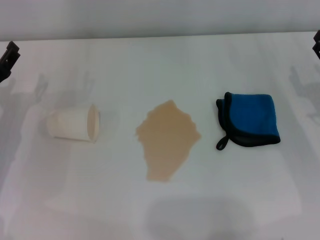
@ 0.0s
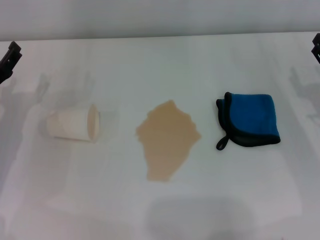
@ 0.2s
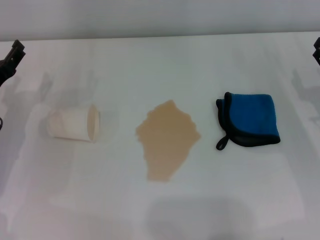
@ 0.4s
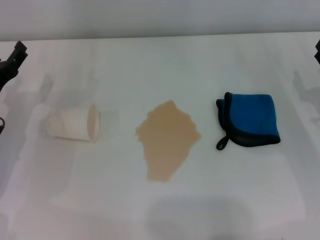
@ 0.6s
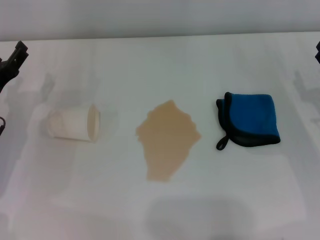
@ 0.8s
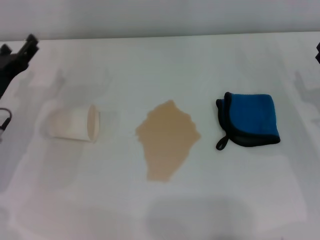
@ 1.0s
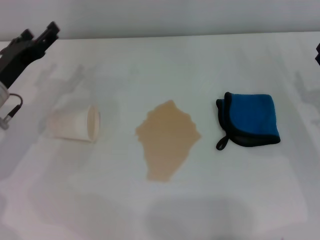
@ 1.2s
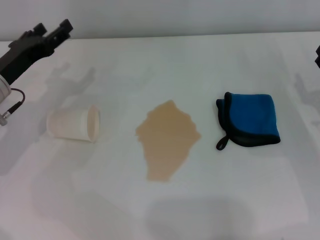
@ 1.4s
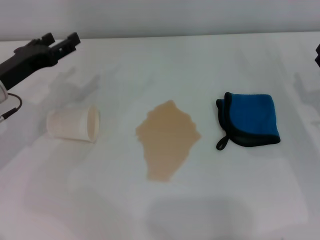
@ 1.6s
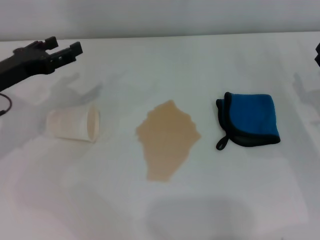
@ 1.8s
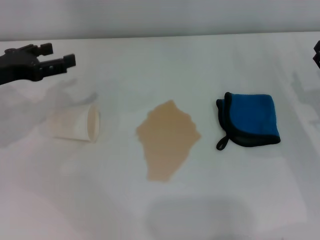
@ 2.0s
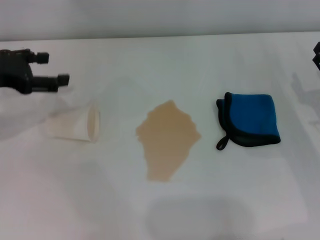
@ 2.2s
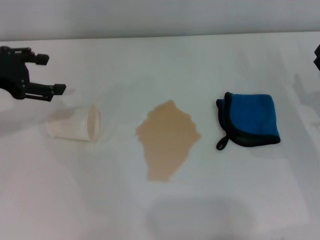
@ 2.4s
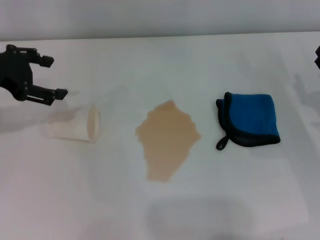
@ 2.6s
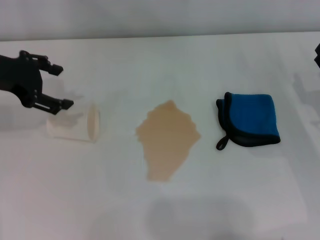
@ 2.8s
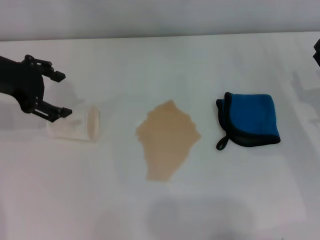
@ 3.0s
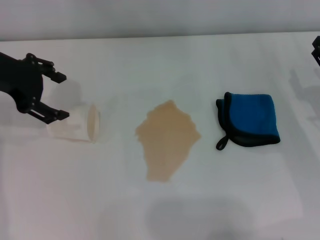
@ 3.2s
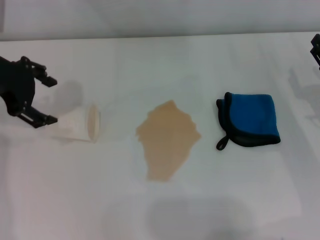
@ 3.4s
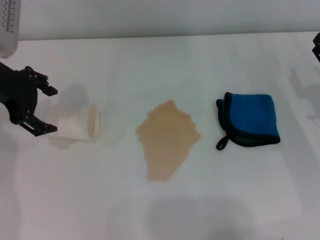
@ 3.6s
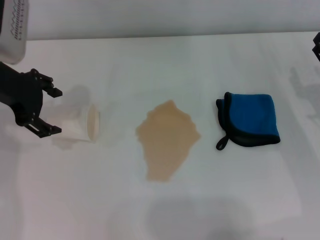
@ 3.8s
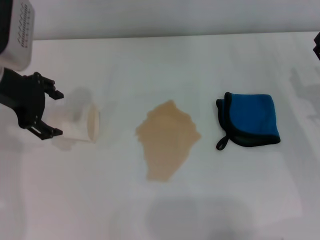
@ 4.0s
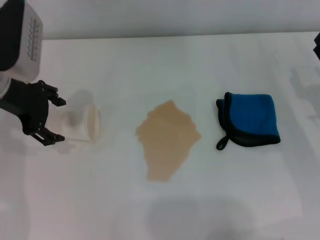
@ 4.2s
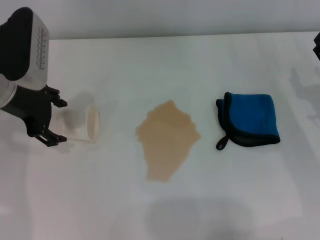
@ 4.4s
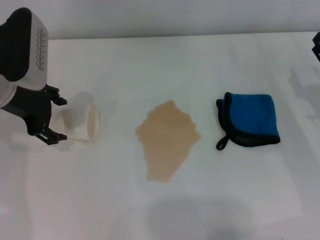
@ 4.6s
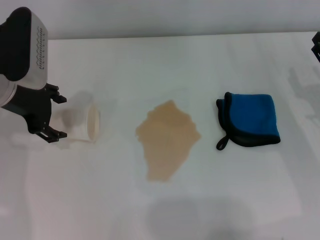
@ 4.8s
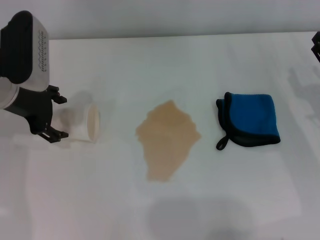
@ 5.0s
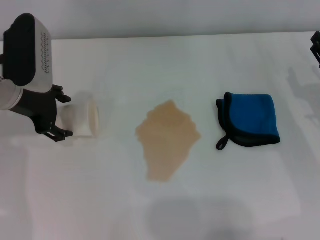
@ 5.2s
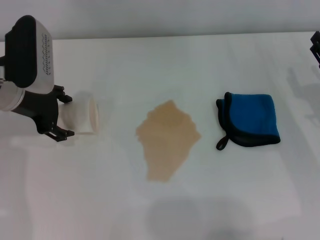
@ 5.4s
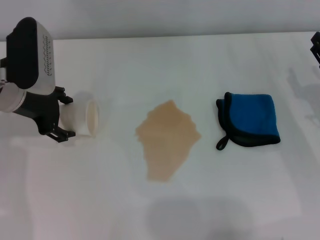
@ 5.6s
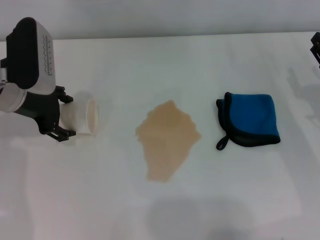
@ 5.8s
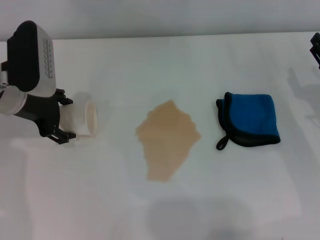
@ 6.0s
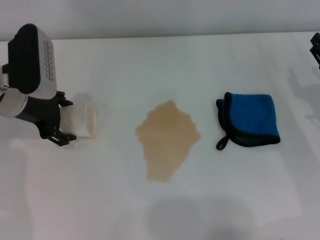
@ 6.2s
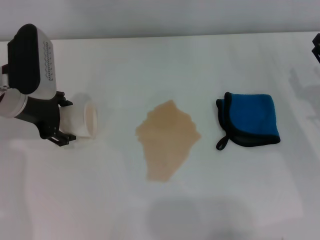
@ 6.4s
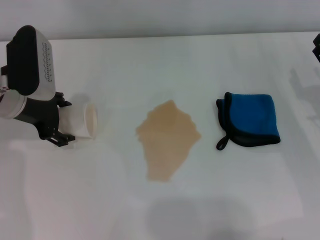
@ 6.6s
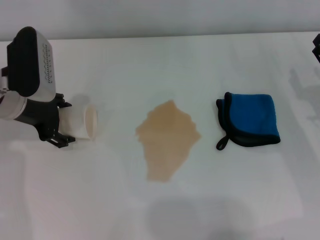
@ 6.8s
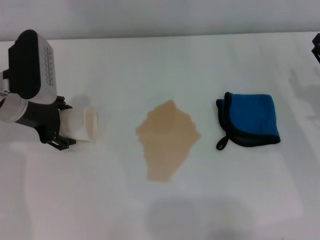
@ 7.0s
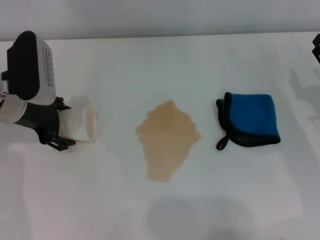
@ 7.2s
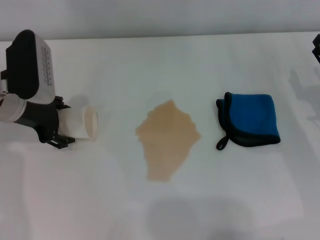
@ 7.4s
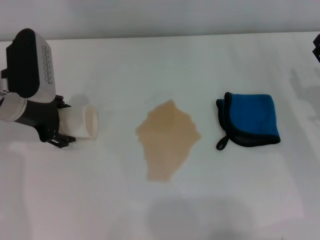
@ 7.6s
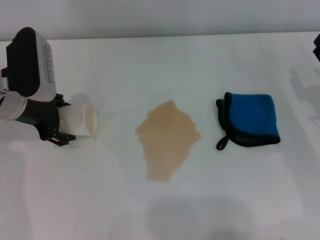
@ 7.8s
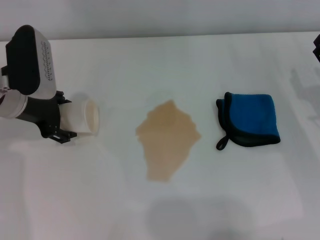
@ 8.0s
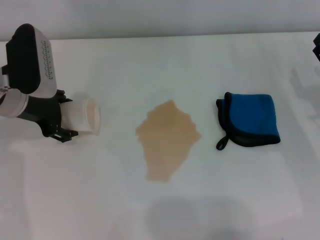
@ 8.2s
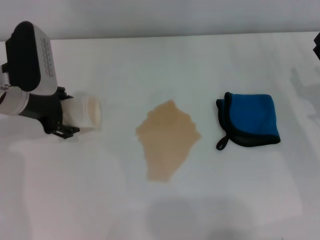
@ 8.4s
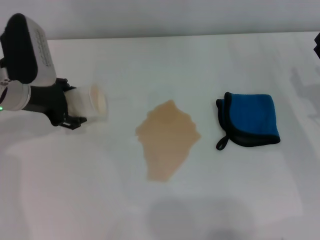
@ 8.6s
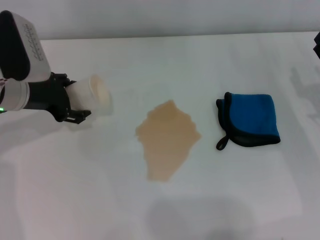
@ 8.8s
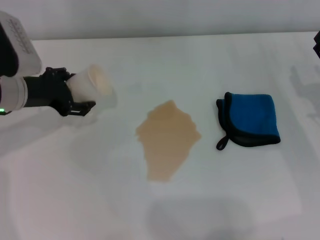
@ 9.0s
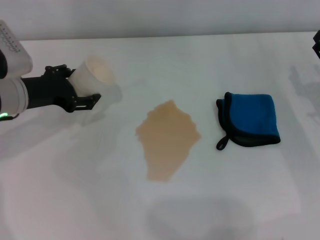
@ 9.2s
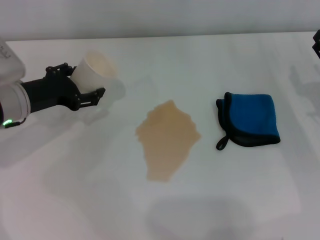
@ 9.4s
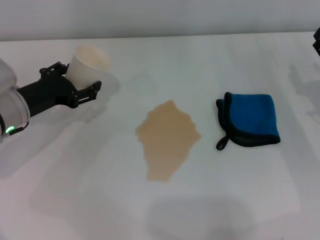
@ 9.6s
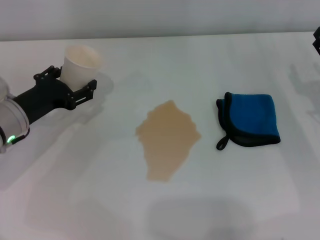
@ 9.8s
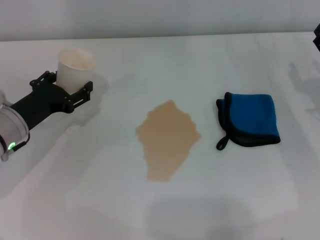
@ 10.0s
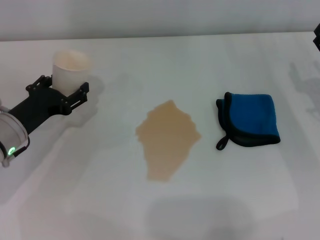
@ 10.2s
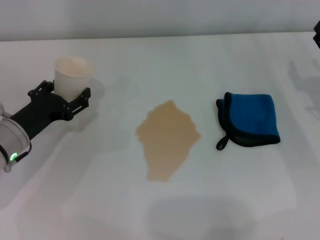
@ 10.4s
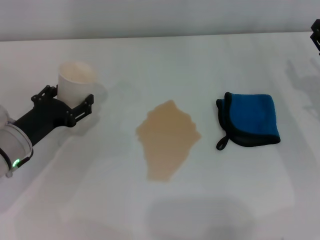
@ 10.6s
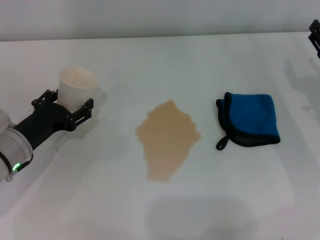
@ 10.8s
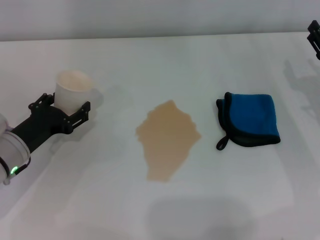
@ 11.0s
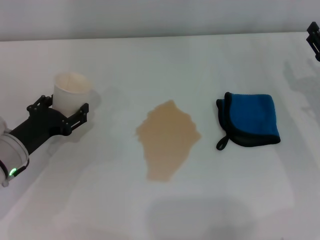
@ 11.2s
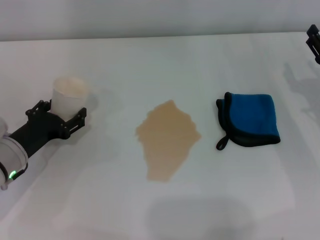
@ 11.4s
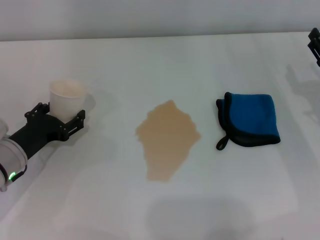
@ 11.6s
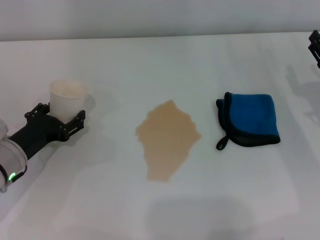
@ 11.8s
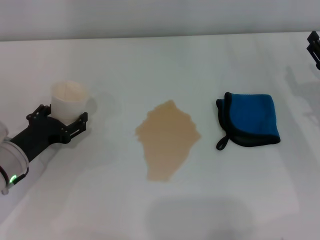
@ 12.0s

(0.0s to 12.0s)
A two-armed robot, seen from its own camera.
Step, 0.0s - 7.6s: Grasp the paper cup with the left gripper.
0.0s - 1.6s: The left gripper changes place by some 5 cm.
1.6s - 3.0s: The left gripper travels upward by some 10 cm.
3.0s - 4.4s: The grippers move only a little.
4.4s - 6.0s: There are only small adjustments of the grippers.
6.0s - 7.6s: Both grippers stay put.
9.0s - 10.4s: The left gripper travels downward and backward by roughly 10 cm.
10.4s - 12.0s: There are only small adjustments of the grippers.

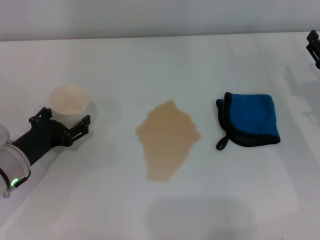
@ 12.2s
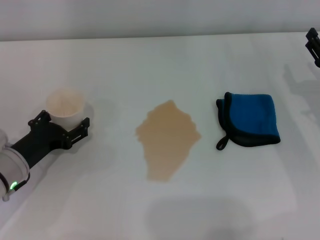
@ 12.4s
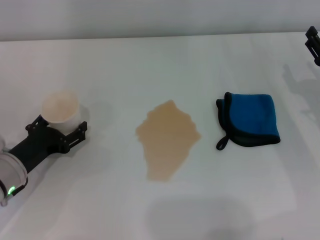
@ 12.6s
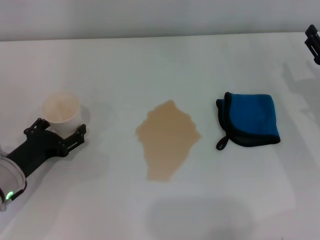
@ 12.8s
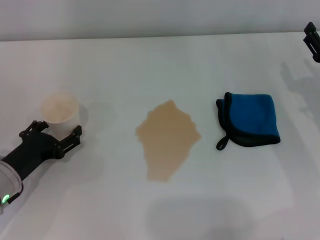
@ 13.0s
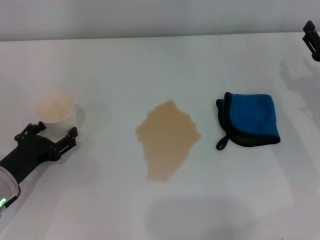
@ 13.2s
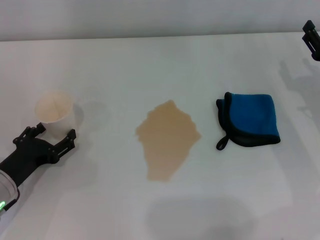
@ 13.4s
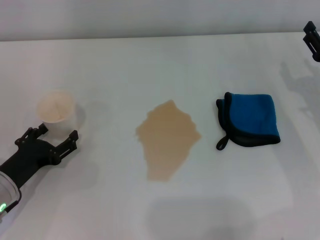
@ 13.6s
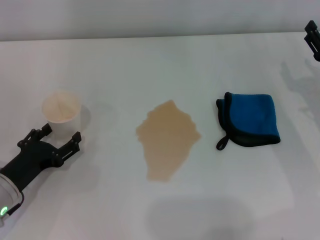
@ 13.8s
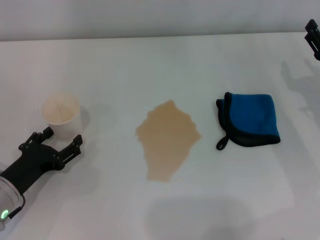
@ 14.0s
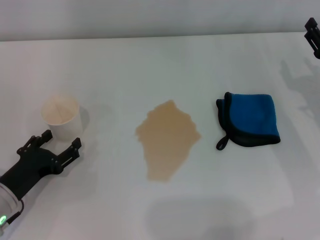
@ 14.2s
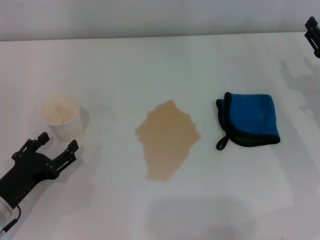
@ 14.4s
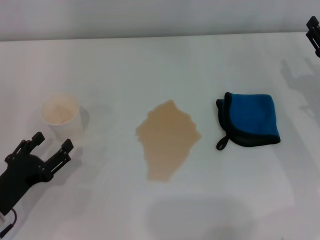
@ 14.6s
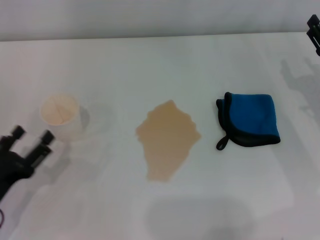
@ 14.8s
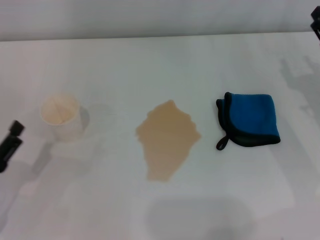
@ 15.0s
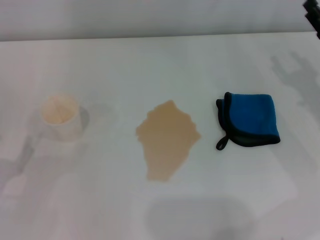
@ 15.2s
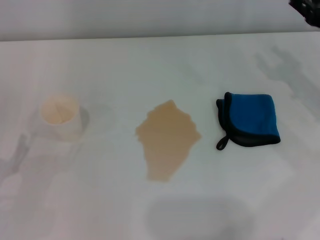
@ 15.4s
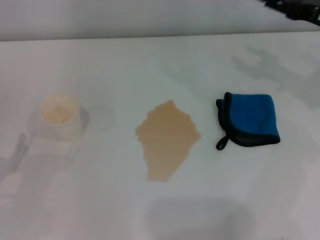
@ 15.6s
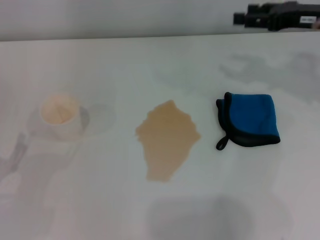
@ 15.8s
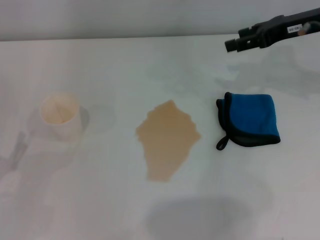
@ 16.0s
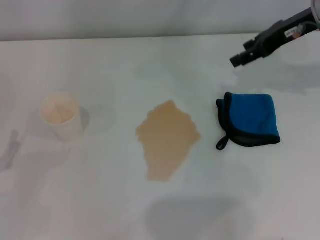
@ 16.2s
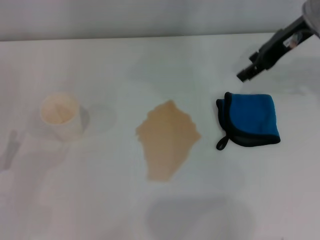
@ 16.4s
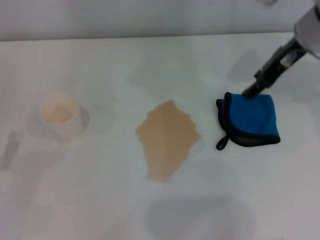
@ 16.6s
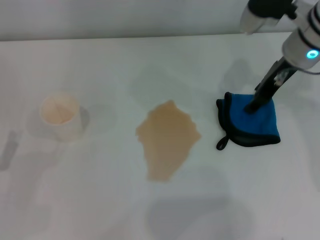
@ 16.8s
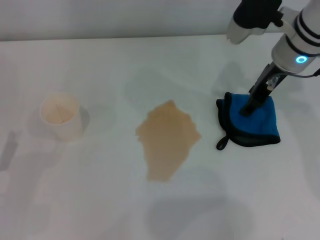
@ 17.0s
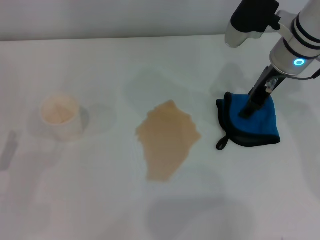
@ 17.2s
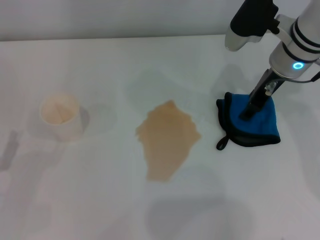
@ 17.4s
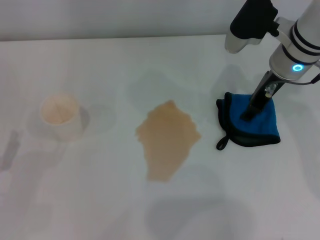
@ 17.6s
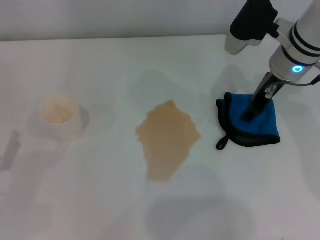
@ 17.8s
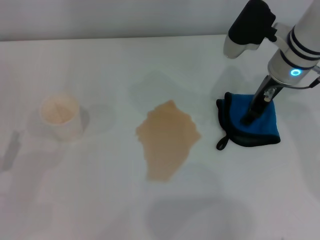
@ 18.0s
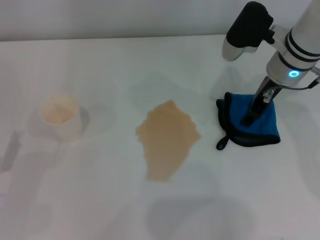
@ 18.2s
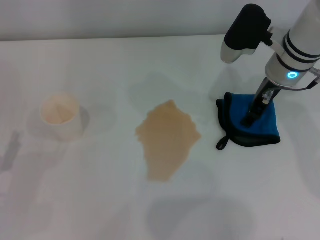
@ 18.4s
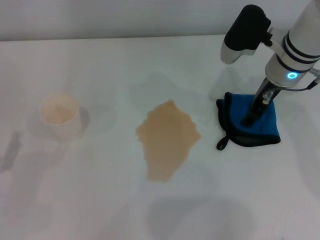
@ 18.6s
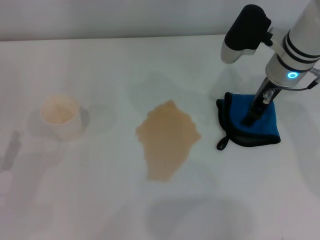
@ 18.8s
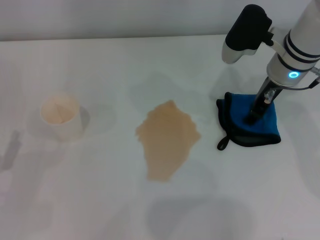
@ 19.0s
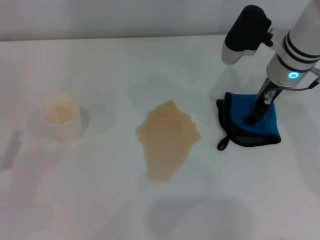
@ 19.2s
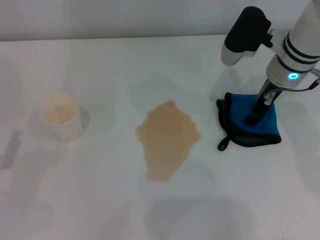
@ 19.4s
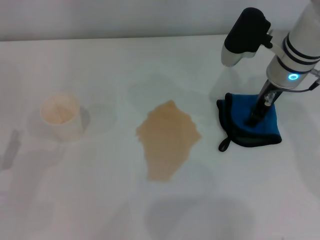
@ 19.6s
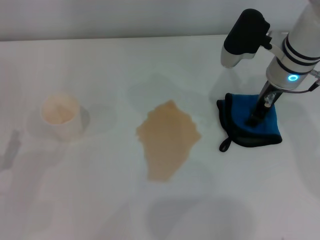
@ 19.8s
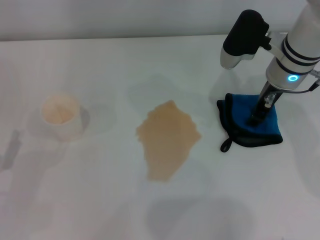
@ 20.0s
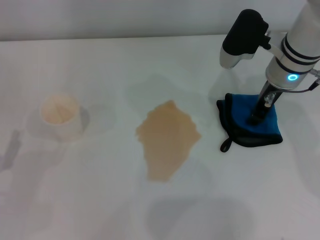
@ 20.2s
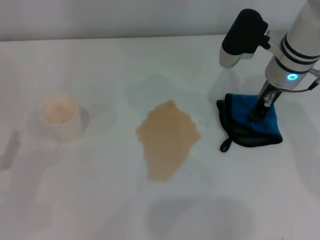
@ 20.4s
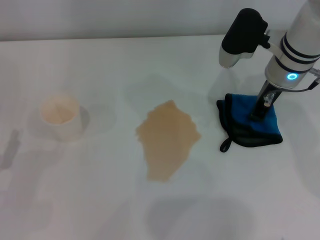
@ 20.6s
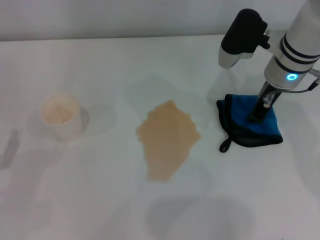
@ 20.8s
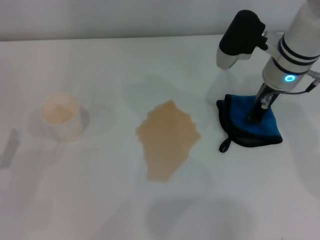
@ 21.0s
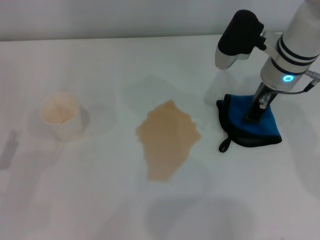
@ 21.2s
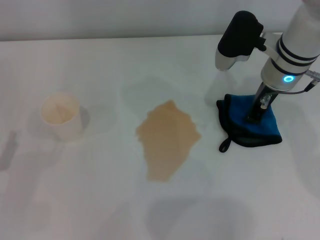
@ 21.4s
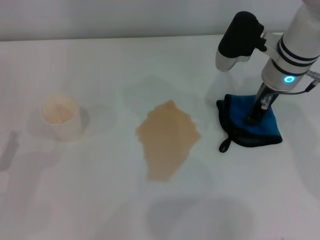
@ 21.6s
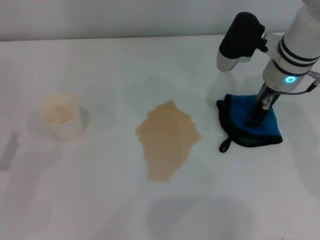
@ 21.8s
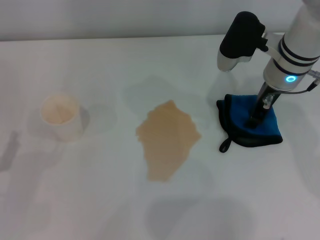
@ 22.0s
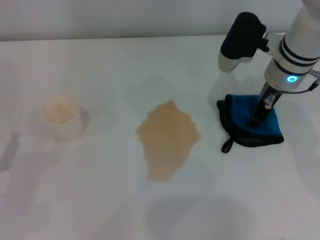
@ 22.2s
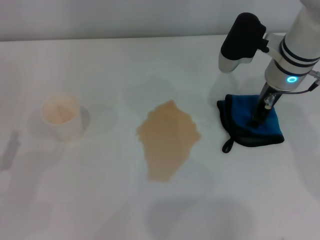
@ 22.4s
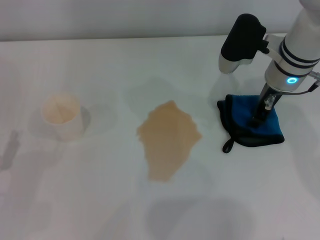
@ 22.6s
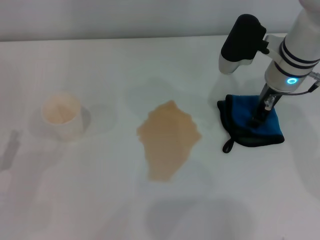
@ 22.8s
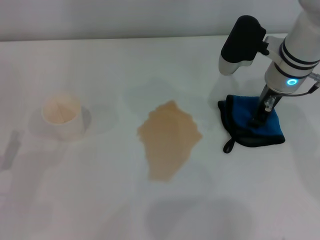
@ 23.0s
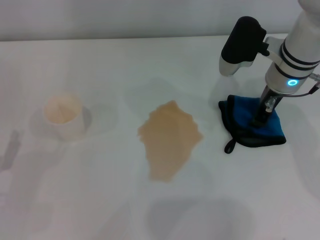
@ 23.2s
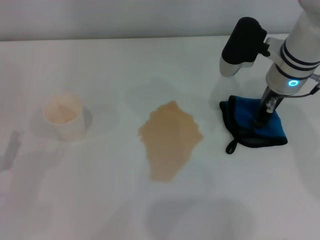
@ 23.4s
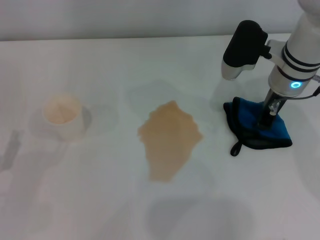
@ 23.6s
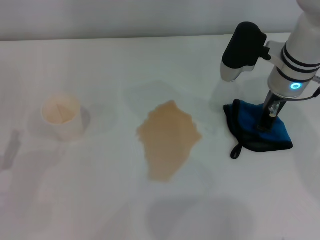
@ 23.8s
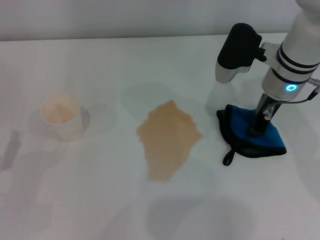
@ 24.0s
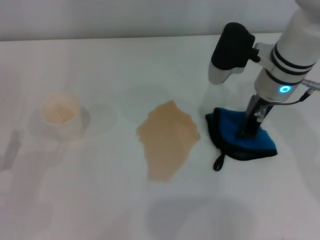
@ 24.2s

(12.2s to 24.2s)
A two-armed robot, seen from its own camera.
Step, 14.2s - 23.2s: Grasp the rag with the right gripper.
12.2s - 13.8s: There are only small adjustments of the grippers.
13.8s - 15.2s: The left gripper is displaced backward and to the left by approximately 10 cm.
15.2s - 16.6s: The right gripper shifts roughly 15 cm upward, forward and to the left.
16.6s - 18.2s: The right gripper is displaced downward by approximately 5 cm.
18.2s - 19.8s: Neither gripper changes place.
19.8s - 21.2s: The right gripper closes.
21.2s - 22.6s: The right gripper opens its fingers.
22.6s - 24.2s: The right gripper closes up.
